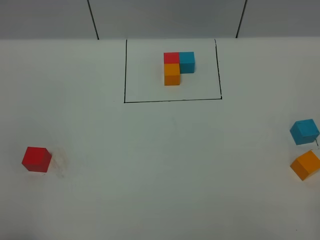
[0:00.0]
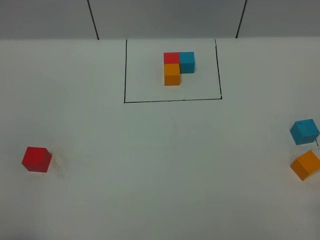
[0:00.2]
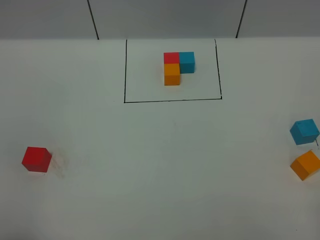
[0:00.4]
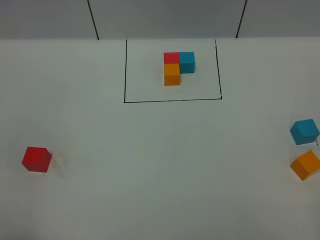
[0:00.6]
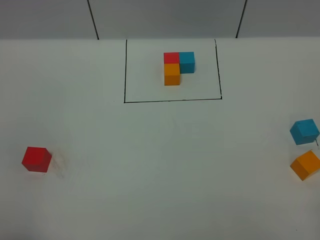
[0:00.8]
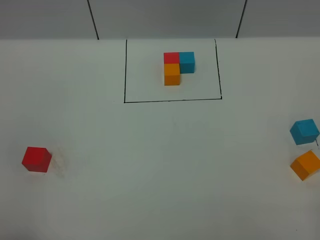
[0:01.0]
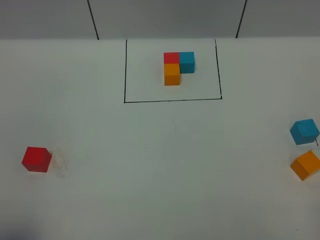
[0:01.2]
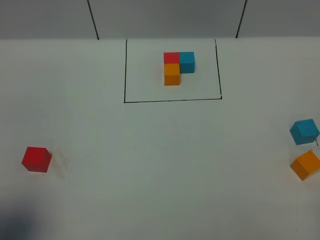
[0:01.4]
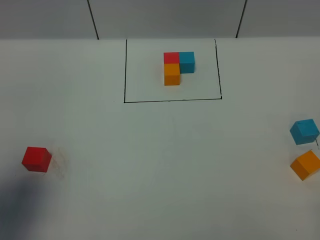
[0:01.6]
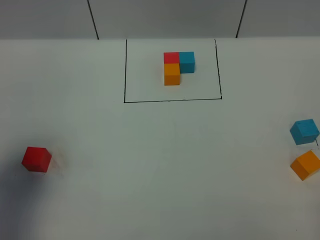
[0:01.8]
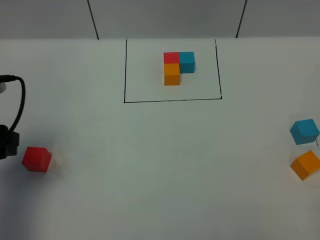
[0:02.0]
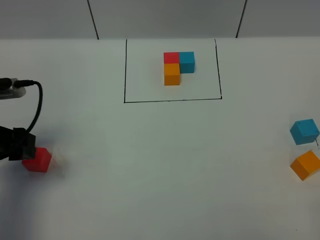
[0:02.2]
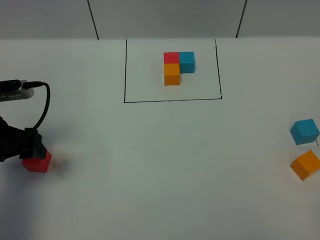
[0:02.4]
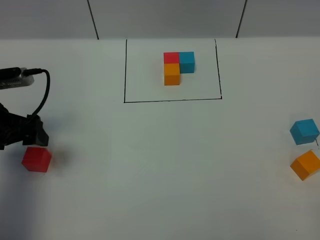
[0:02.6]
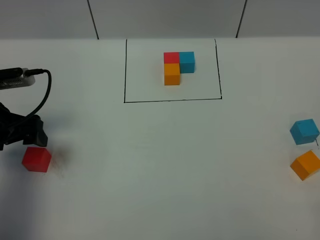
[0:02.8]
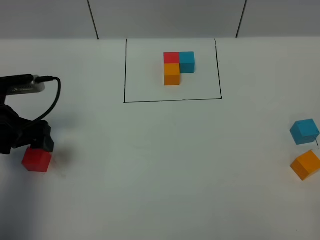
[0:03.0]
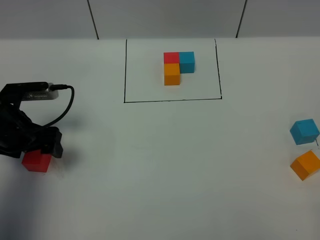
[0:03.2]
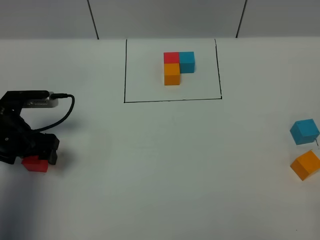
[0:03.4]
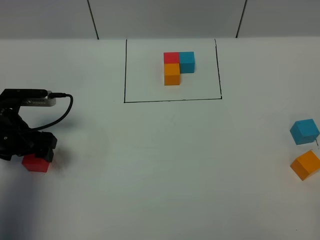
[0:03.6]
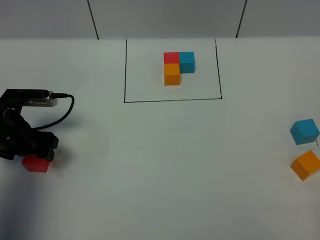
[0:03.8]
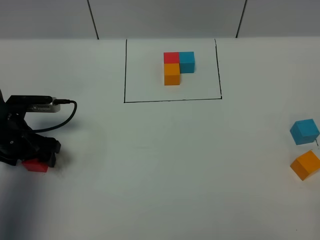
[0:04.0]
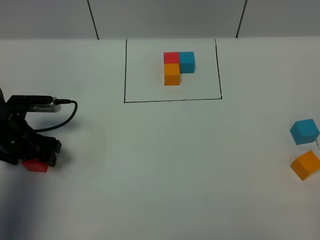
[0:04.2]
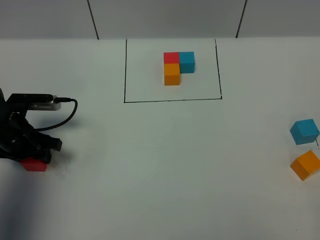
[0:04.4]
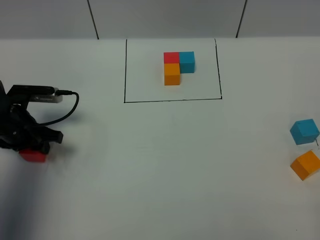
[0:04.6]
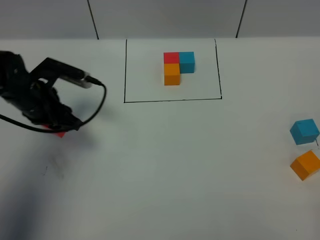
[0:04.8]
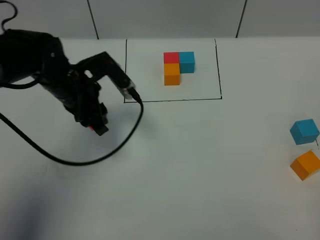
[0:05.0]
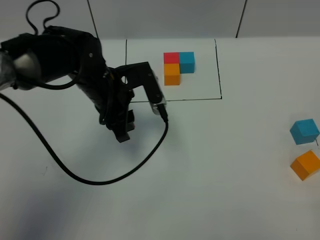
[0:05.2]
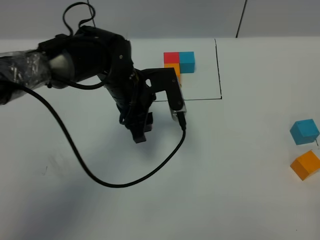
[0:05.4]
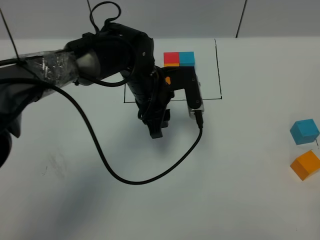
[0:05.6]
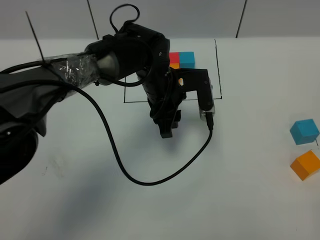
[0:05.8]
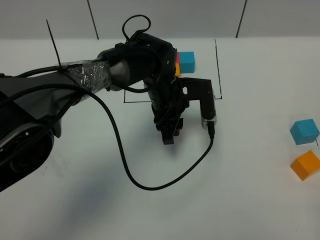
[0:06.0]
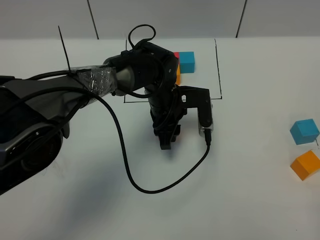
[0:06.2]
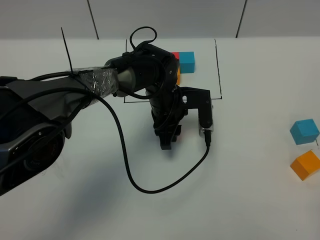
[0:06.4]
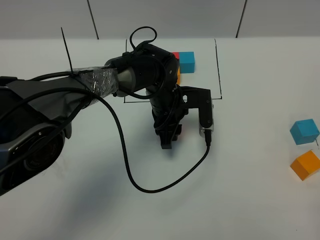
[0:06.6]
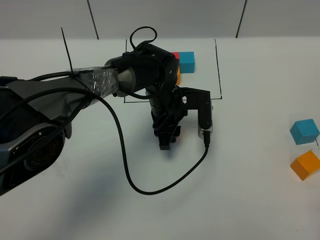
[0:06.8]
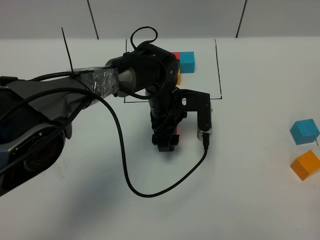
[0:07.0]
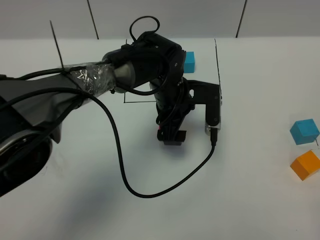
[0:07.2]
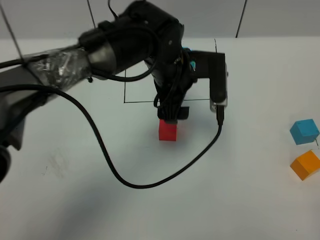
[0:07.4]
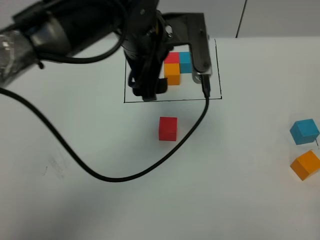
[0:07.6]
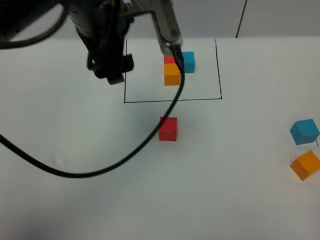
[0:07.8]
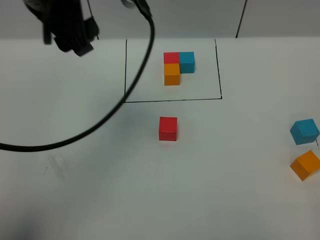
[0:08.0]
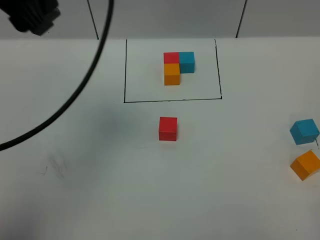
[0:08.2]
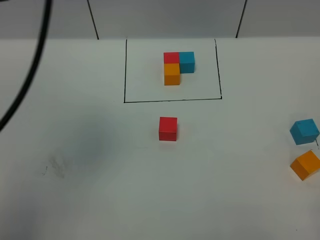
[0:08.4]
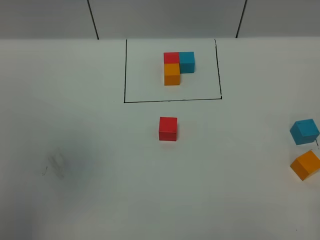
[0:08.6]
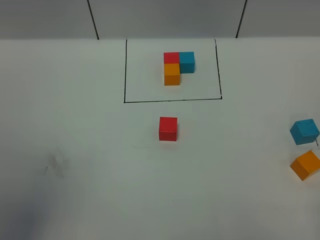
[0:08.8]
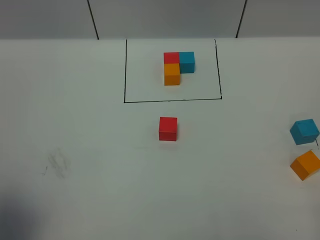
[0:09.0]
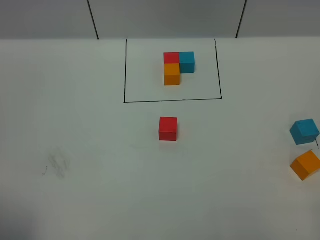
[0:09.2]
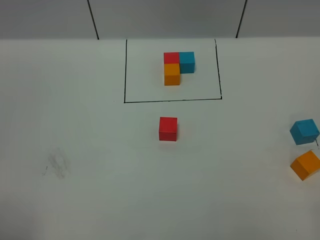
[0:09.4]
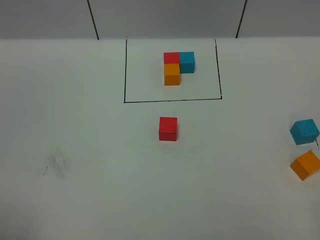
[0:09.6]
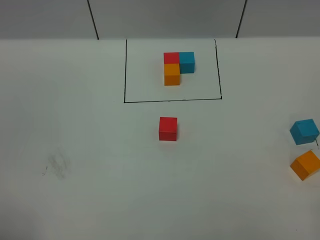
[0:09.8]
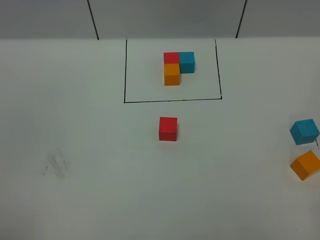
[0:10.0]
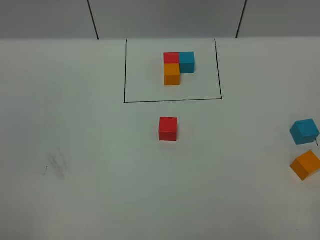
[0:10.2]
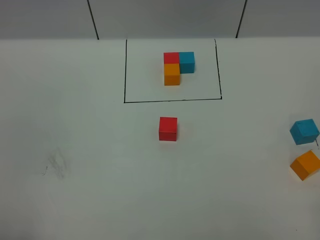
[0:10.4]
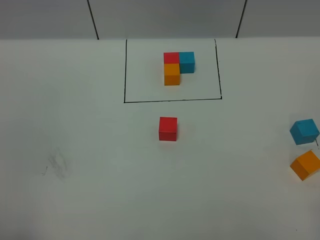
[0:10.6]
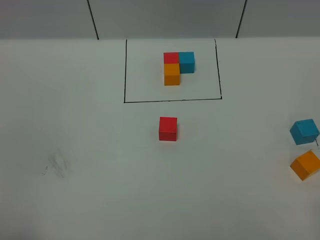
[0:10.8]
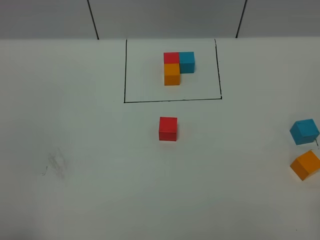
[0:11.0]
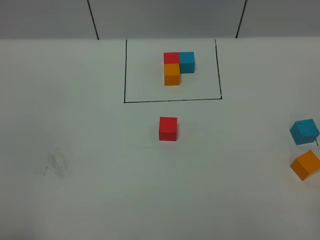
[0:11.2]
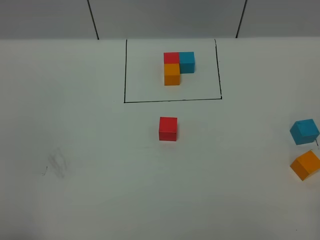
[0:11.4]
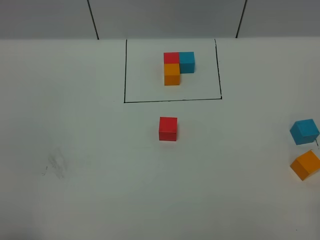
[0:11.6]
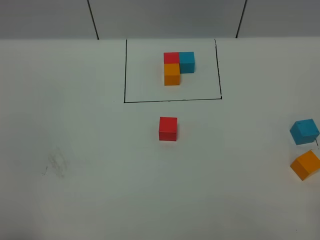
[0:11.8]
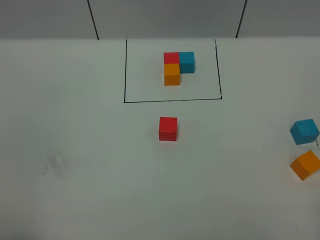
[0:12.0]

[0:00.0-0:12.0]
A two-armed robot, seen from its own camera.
Task of the whole recording: According to the building block template in front, assemble the scattered blocks together.
Step, 0:02.0 to 0:07.4: Put the red cube in the center of the table.
0:00.0 to 0:01.6: The left gripper is displaced forward by about 15 cm.
0:01.6 to 0:03.0: The left gripper shifts approximately 20 cm forward and downward, and opens up.
0:03.0 to 0:04.4: The left gripper heads downward, covering roughly 5 cm, and closes up.
0:04.4 to 0:06.0: The left gripper travels to the right by about 30 cm.
0:06.0 to 0:07.6: The left gripper is displaced upward by about 20 cm, and opens up.
0:07.6 to 0:09.0: The left gripper goes some 40 cm to the left, backward and upward.
0:09.0 to 0:10.4: The left gripper moves downward, about 15 cm.

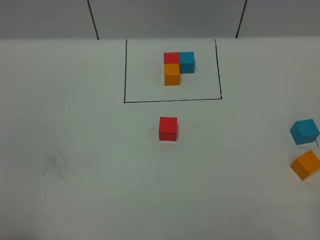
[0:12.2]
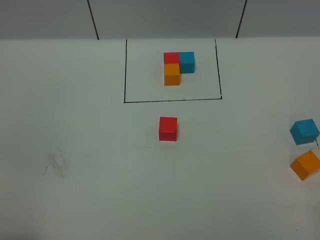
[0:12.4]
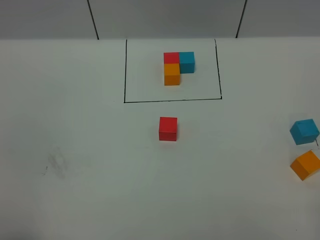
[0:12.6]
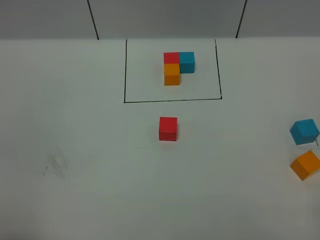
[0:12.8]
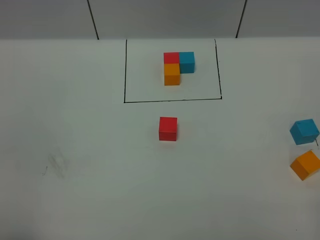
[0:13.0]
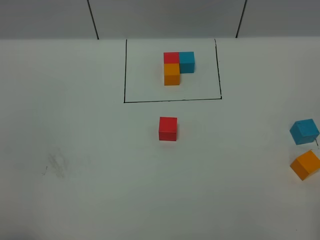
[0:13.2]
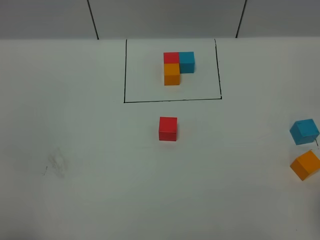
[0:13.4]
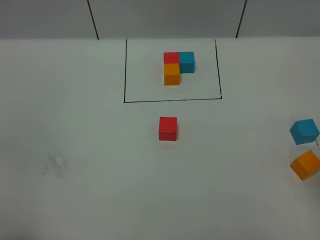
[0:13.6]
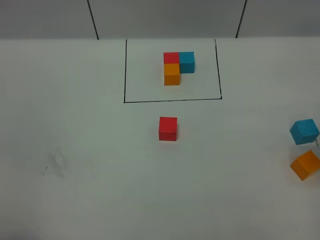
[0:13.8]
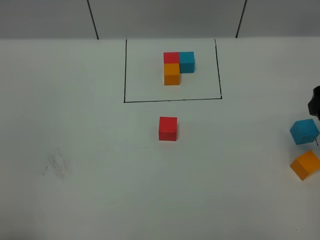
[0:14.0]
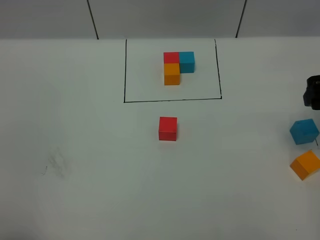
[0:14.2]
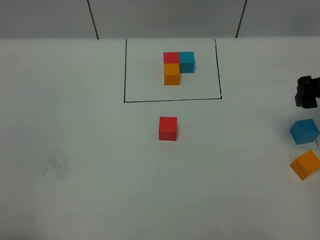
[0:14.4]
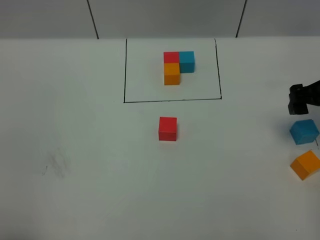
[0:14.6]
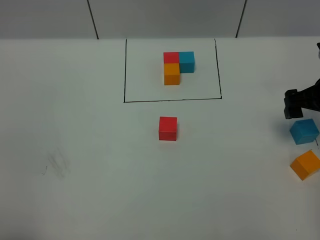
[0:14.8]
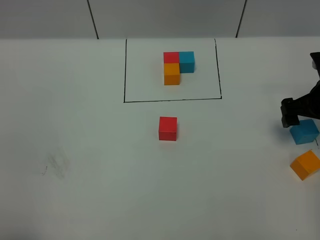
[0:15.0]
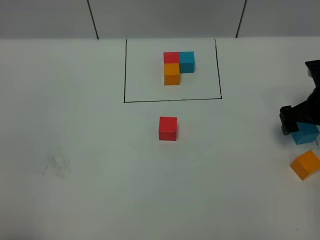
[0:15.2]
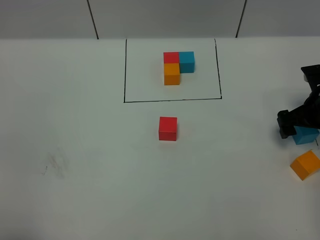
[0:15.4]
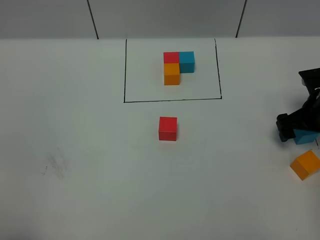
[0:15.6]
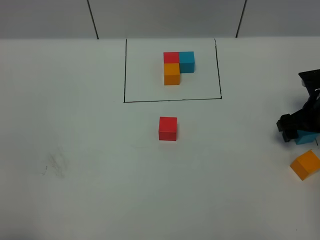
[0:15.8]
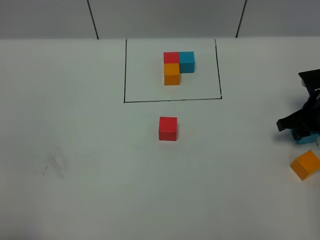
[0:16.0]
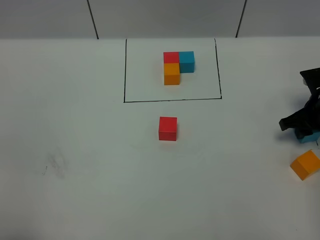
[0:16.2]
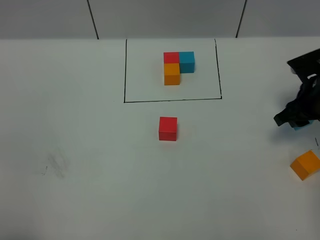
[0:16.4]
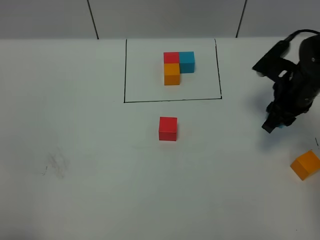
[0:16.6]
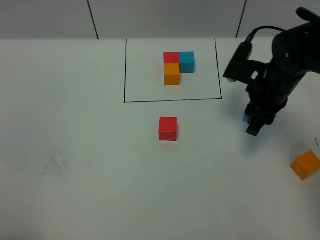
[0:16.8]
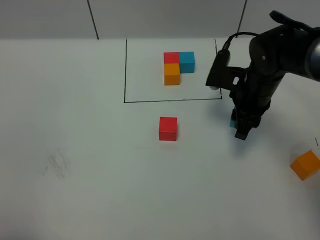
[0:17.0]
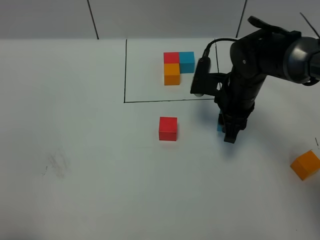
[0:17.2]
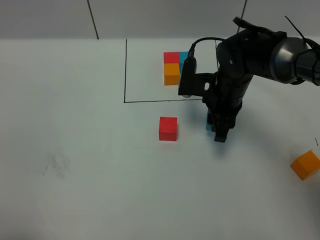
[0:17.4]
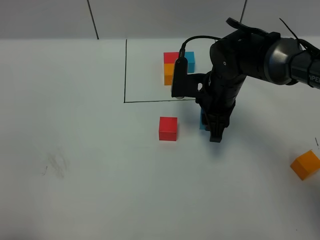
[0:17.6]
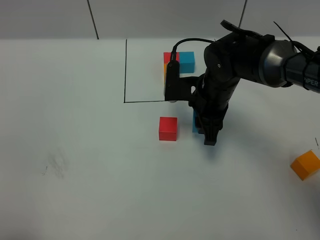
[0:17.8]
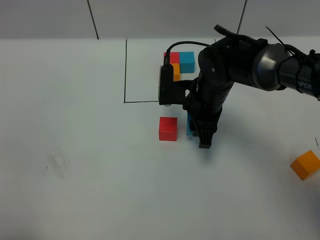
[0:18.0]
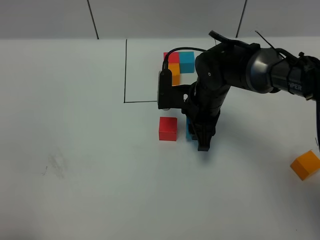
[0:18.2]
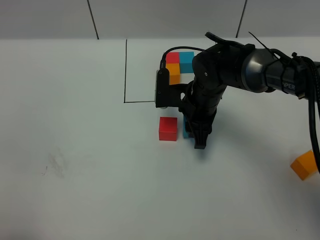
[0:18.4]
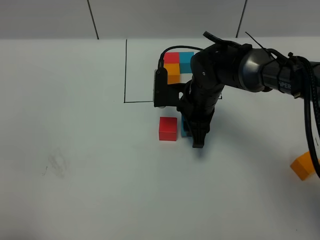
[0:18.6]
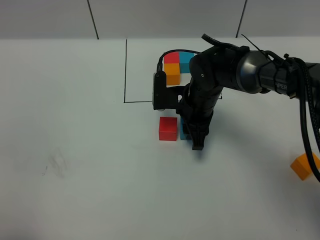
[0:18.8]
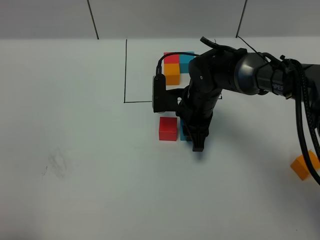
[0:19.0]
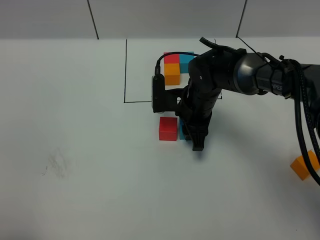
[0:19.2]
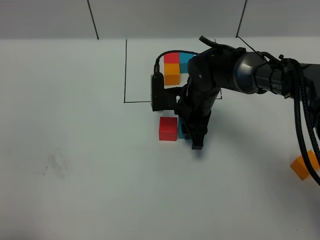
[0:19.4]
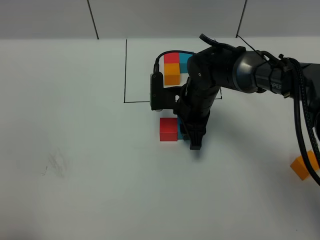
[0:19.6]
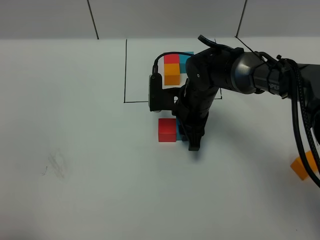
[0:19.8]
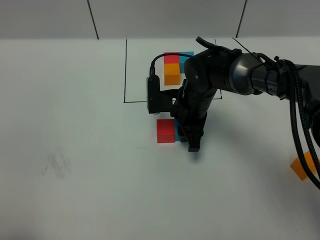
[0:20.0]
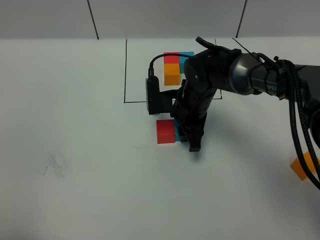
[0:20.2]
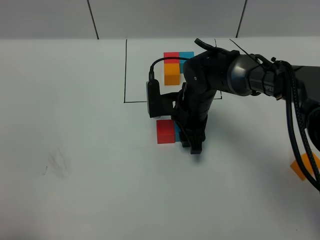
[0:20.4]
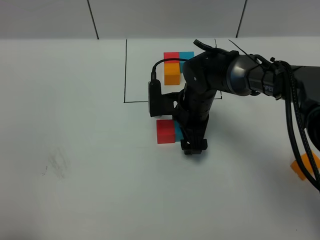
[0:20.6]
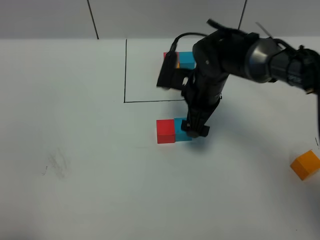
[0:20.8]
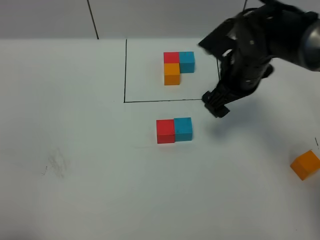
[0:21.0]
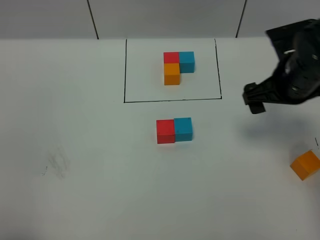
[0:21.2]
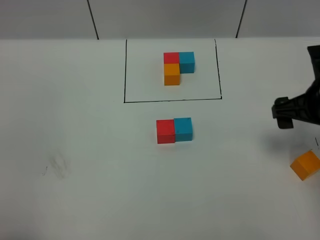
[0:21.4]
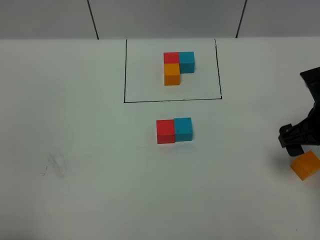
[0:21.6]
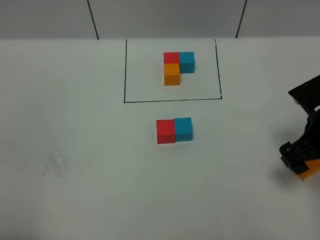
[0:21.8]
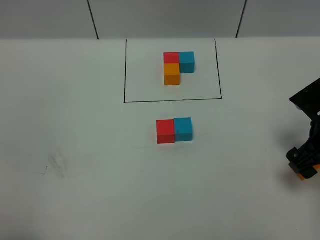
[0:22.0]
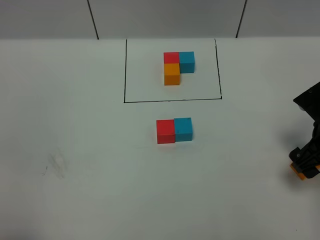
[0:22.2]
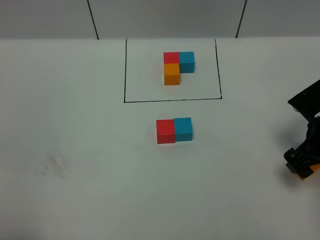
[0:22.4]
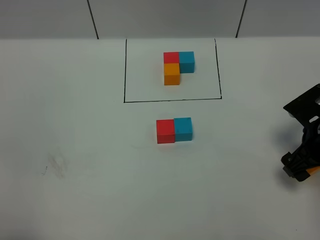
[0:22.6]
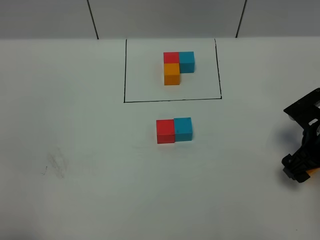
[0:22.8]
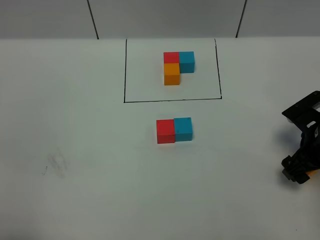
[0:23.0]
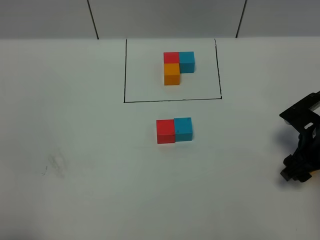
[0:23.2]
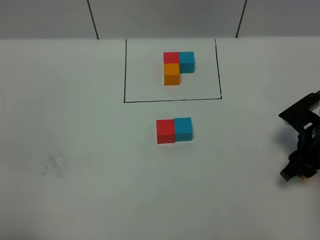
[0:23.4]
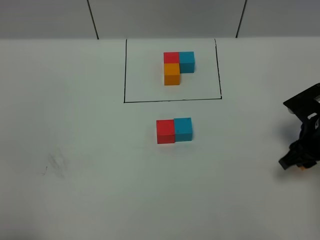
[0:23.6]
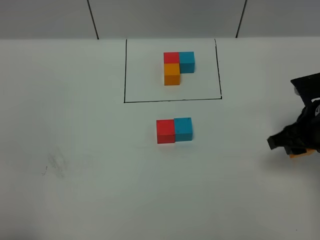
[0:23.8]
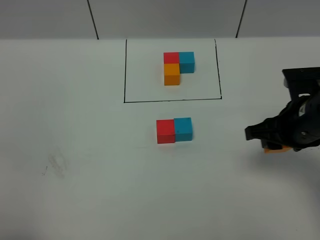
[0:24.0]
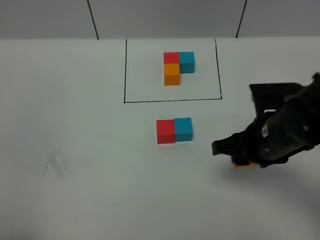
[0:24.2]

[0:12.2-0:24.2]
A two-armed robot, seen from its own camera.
Task of the whole recording: According to the building block template in front, assemble the scattered blocks together.
Step, 0:12.2 to 0:20.8: Put the blue cube on the right of the red cube.
0:13.8 to 0:15.2: The right gripper travels downward and forward by roughly 20 cm.
0:15.2 to 0:16.6: The right gripper heads to the left, covering some 5 cm, and closes up.
0:16.6 to 0:18.2: The right gripper goes roughly 15 cm to the left.
0:18.2 to 0:19.8: The grippers stay close to where they were, moving slightly.
0:19.8 to 0:21.2: The right gripper moves to the right and upward, some 20 cm, and opens up.
0:21.2 to 0:22.6: The right gripper goes roughly 10 cm downward and to the right.
0:22.6 to 0:24.2: The right gripper shifts some 15 cm to the left and upward, and closes up.
